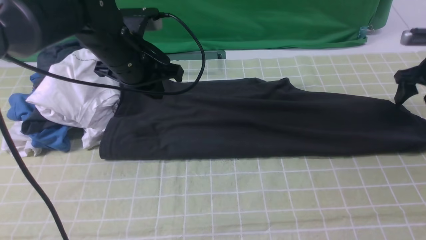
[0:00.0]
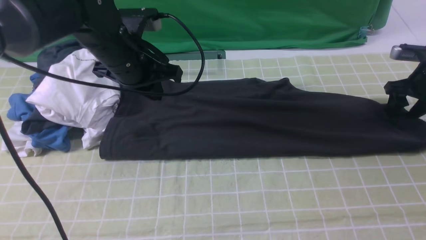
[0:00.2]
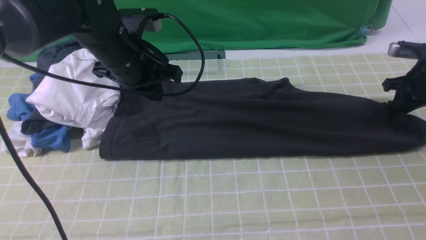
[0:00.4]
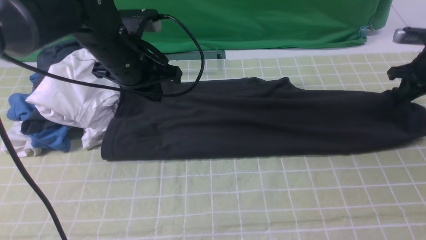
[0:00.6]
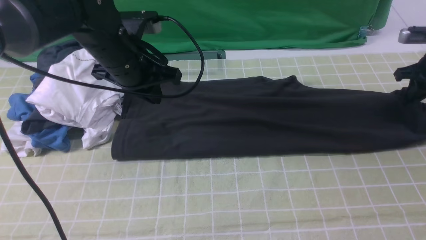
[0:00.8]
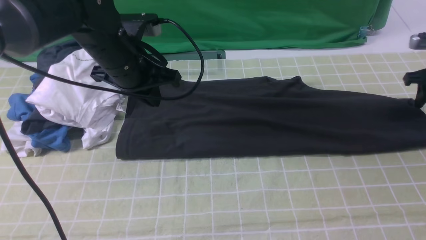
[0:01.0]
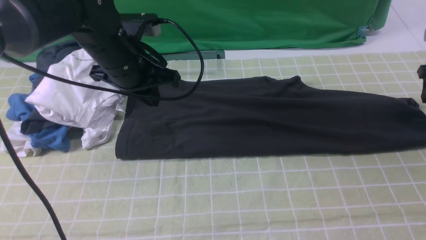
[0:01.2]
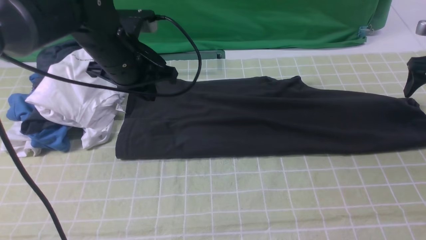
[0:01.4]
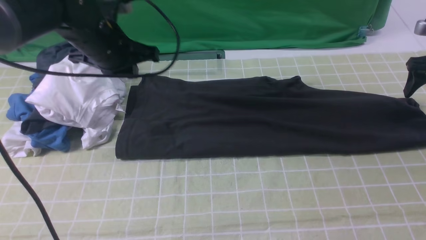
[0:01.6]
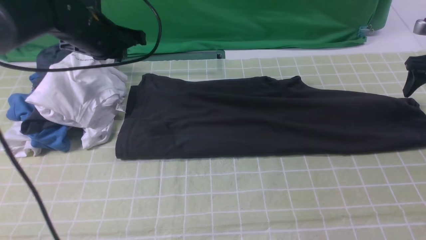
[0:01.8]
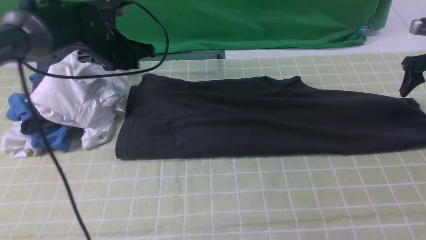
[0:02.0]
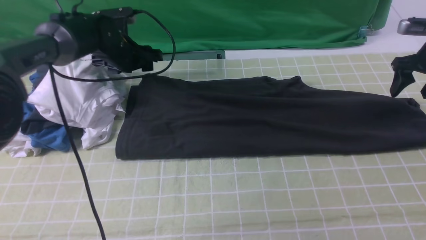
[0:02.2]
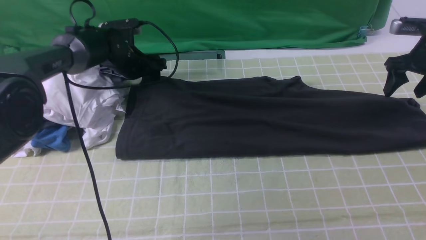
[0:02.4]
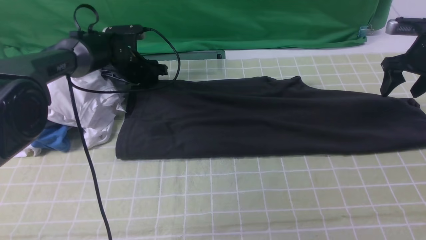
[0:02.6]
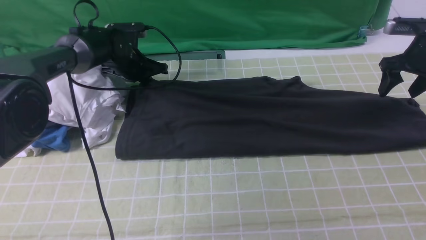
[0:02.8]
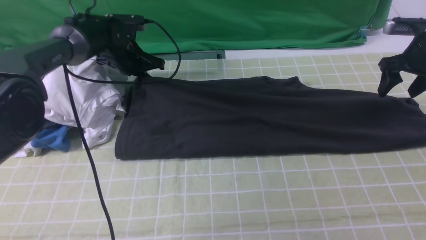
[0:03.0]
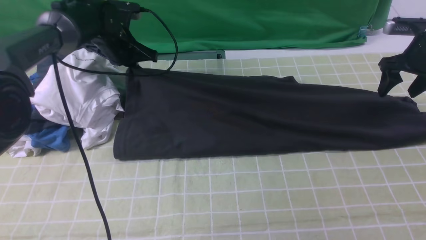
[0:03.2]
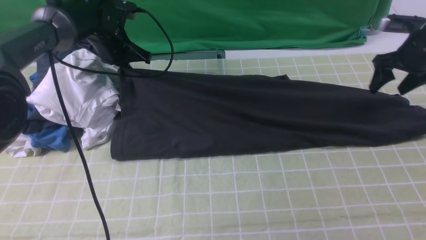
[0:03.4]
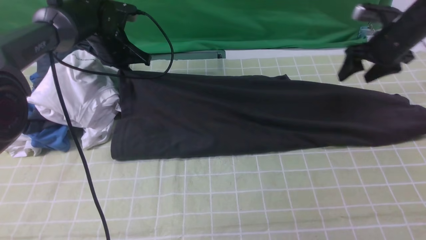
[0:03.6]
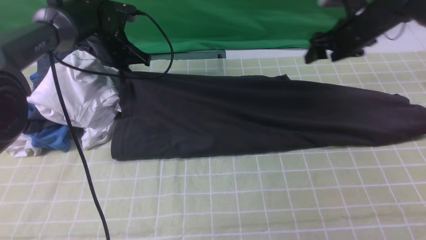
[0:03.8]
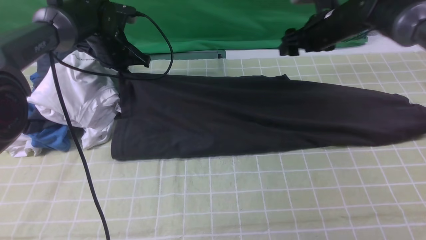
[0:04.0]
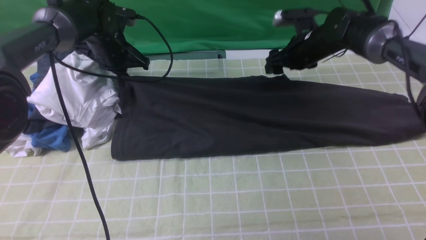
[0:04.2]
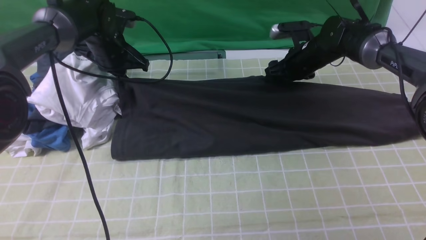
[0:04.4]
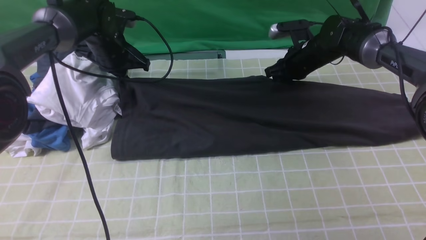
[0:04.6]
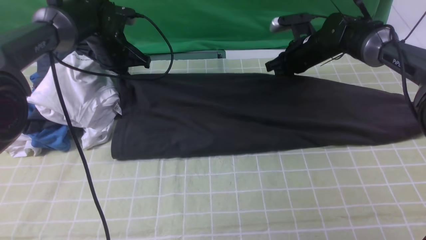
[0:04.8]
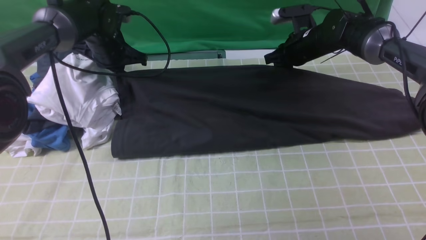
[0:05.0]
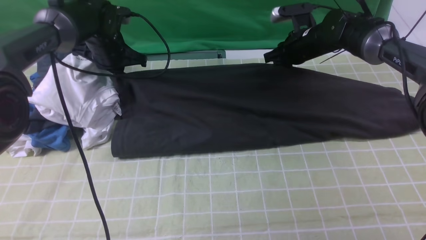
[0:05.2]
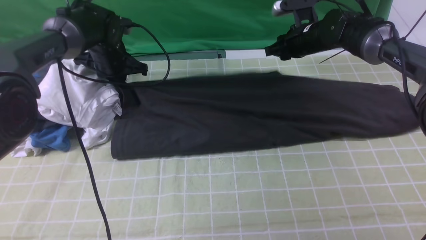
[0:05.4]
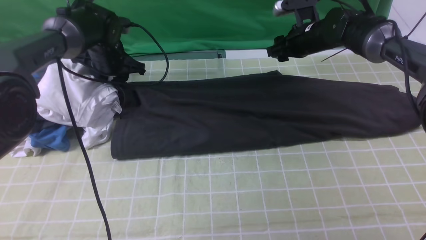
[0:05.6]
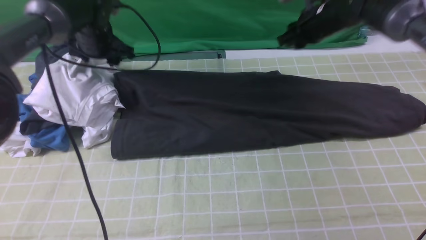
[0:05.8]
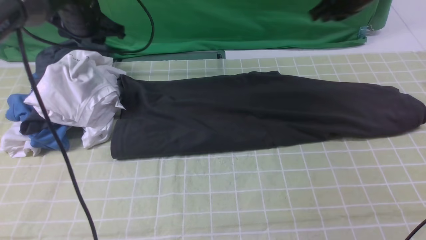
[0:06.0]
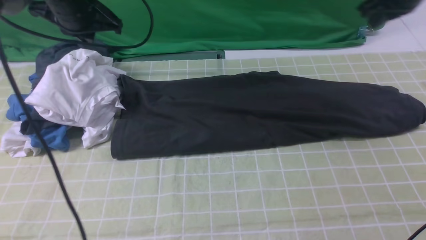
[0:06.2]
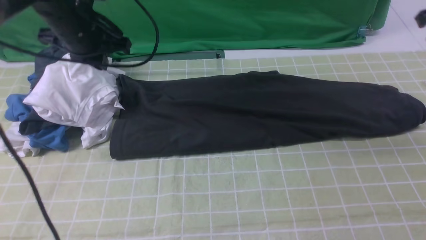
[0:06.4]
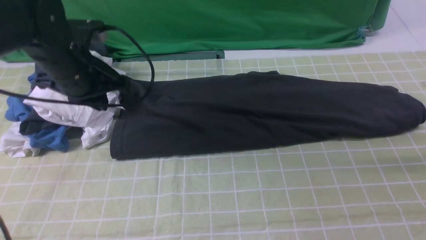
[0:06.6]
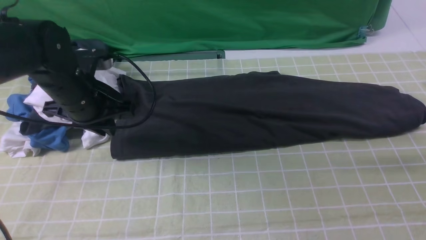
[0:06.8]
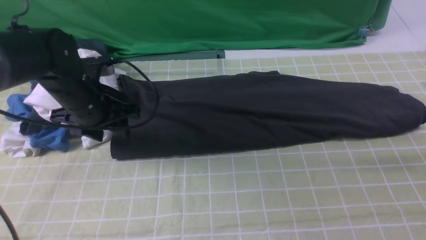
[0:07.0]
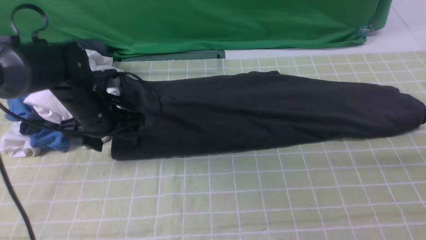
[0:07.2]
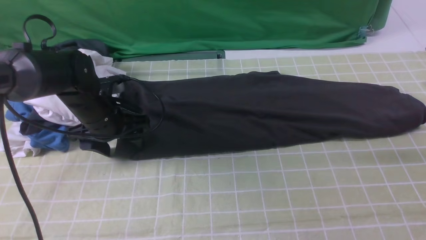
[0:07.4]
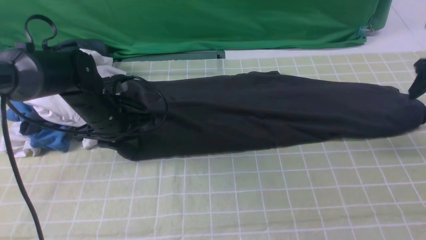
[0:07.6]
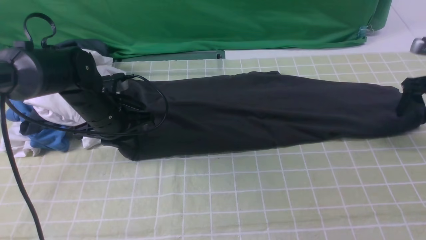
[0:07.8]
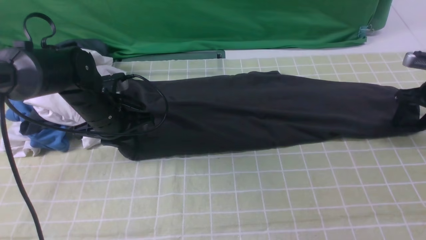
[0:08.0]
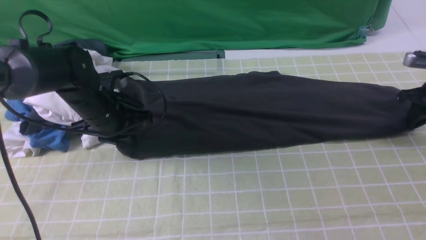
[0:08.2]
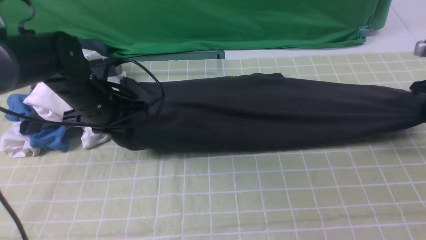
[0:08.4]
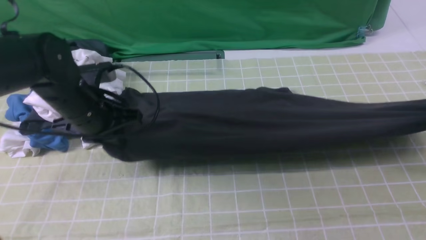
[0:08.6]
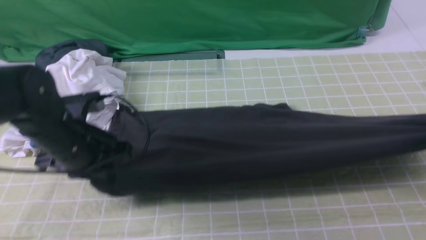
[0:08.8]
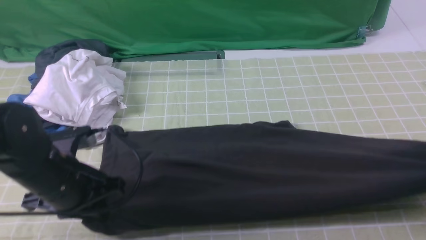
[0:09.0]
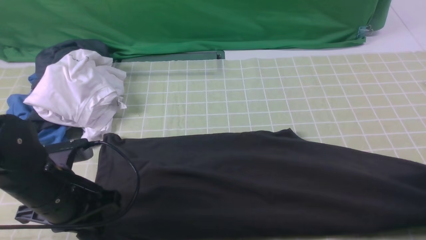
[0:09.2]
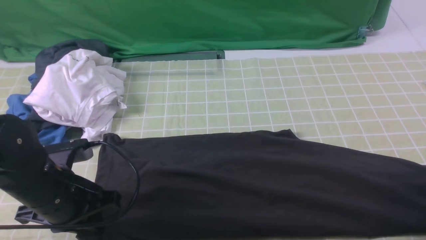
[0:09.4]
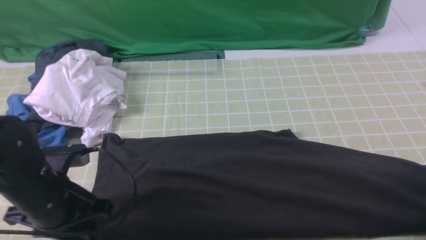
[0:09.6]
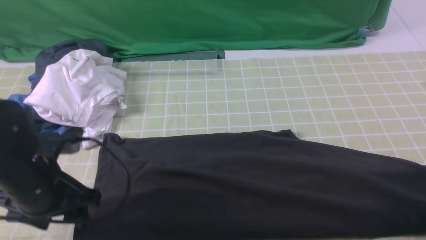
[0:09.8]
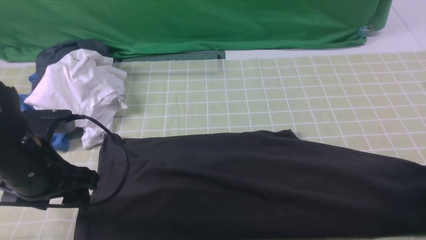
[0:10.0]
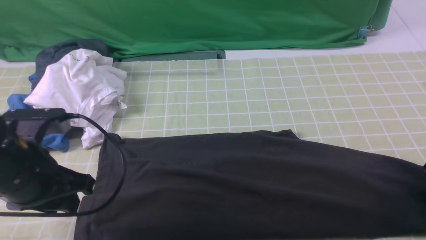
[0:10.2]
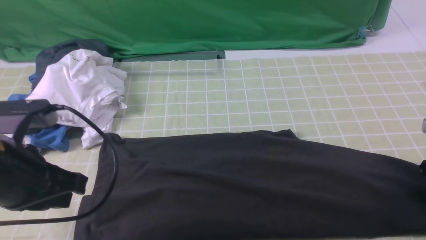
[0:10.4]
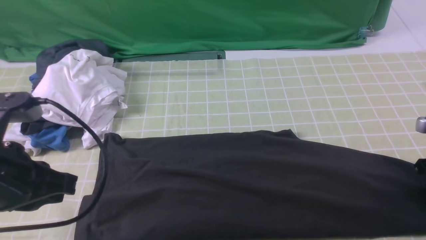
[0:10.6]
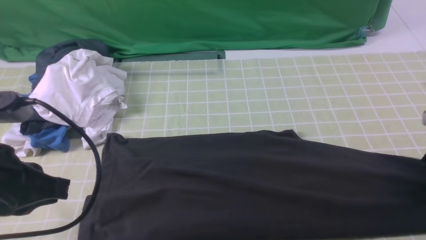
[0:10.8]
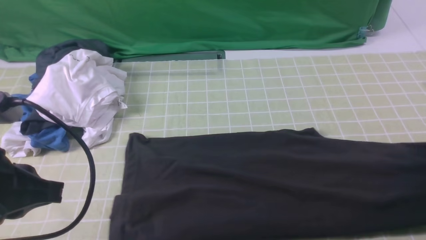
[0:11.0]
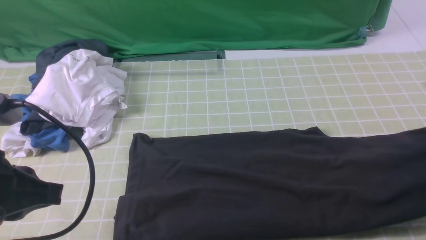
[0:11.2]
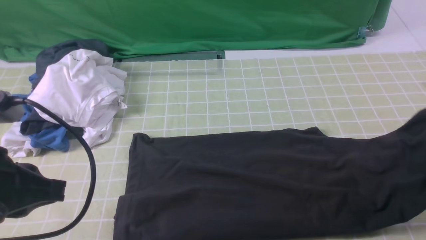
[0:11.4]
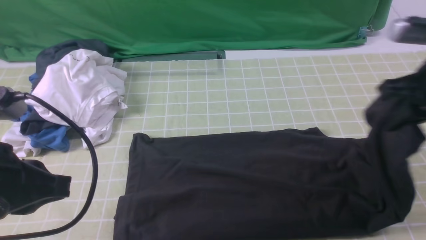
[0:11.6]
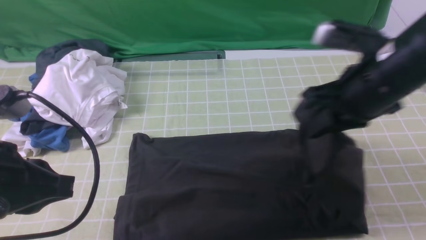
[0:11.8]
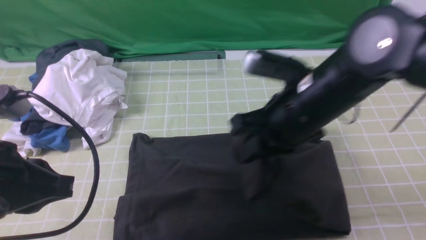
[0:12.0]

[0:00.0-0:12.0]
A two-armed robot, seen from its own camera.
Step, 0:00.0 to 0:10.8: use the right arm to clamp the right edge of the fabric.
0:00.0 to 0:01.6: The right gripper closes, then reopens.
0:01.6 to 0:03.0: The right gripper shifts about 5 cm to the left; the left gripper goes approximately 15 cm forward and downward, and opens and closes again.
0:03.0 to 0:04.4: The right gripper goes some 20 cm to the left.
0:04.4 to 0:06.0: The left gripper travels upward by approximately 10 cm, and opens its fingers. Meanwhile the right gripper travels upward and to the right by roughly 15 cm, and closes its fingers.
0:06.0 to 0:07.6: The right gripper moves to the right and downward, approximately 20 cm, and opens. Meanwhile the left gripper shifts roughly 15 cm downward and backward, and closes and opens again.
0:07.6 to 0:09.0: The two grippers go about 15 cm backward. The left gripper closes up, while the right gripper closes its fingers.
0:09.0 to 0:10.4: The right gripper travels downward by about 10 cm, and opens its fingers. The left gripper travels upward and backward by roughly 10 cm, and opens, then closes once more.
0:10.4 to 0:12.0: The right gripper goes about 35 cm to the left and upward, and closes its fingers.

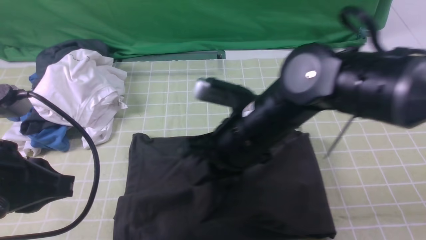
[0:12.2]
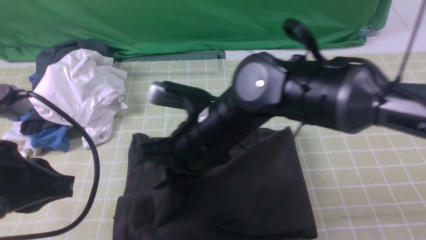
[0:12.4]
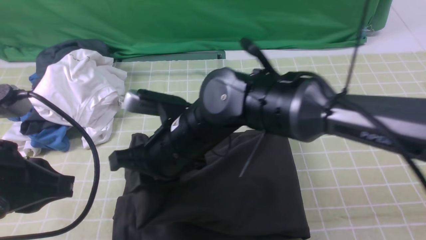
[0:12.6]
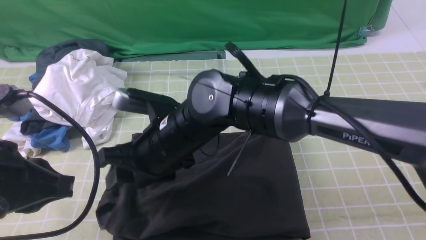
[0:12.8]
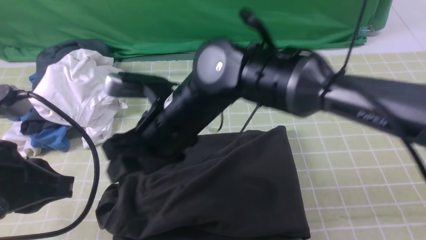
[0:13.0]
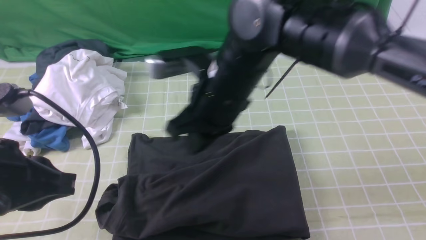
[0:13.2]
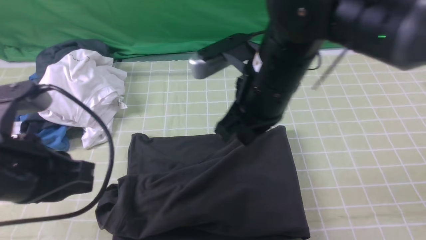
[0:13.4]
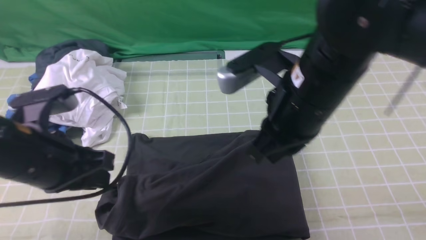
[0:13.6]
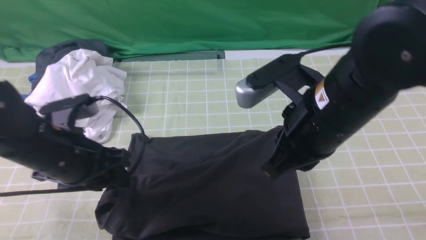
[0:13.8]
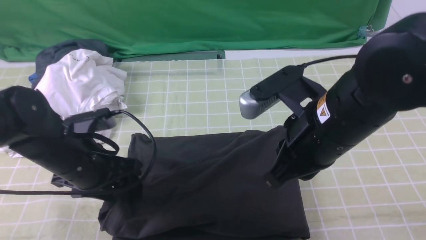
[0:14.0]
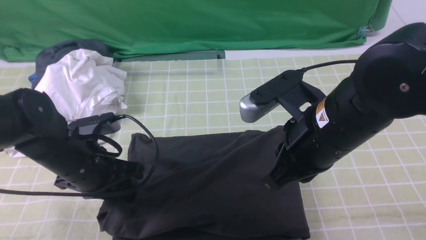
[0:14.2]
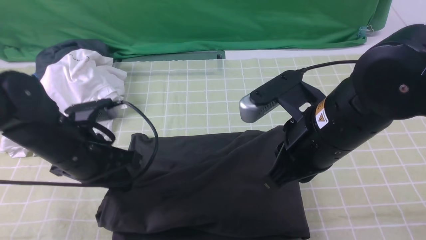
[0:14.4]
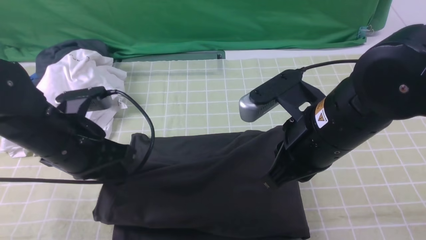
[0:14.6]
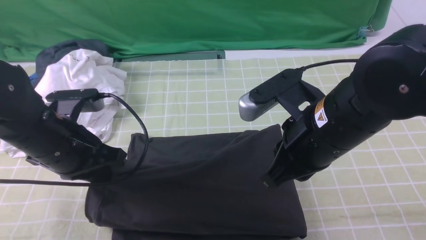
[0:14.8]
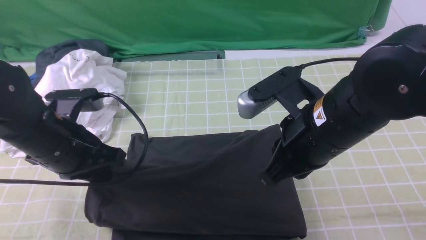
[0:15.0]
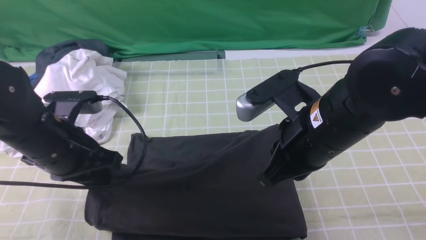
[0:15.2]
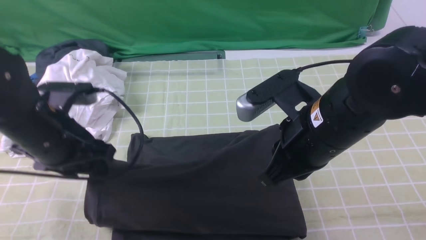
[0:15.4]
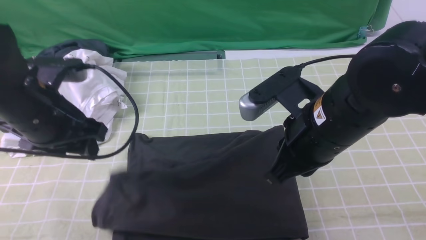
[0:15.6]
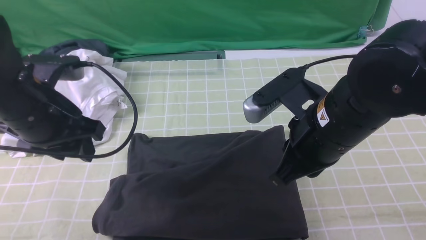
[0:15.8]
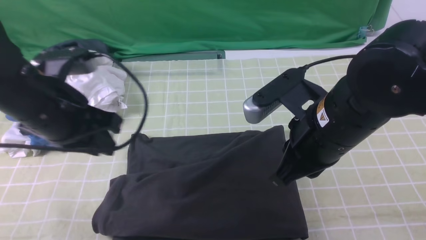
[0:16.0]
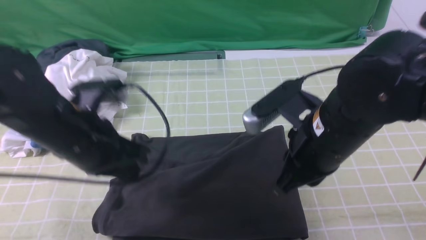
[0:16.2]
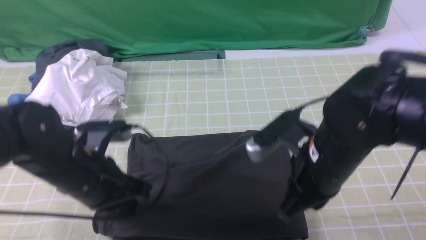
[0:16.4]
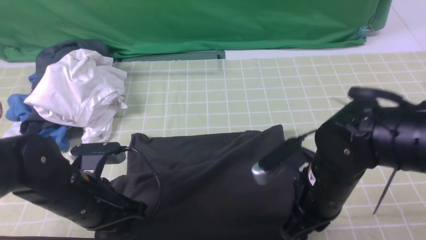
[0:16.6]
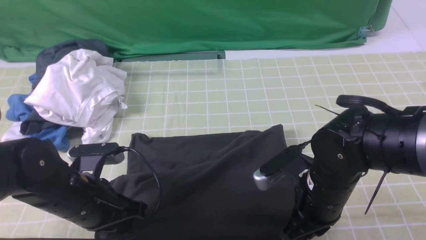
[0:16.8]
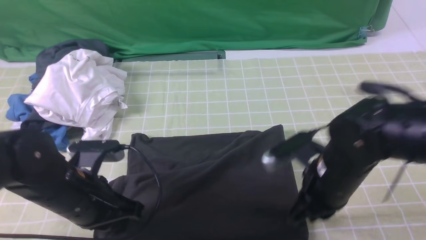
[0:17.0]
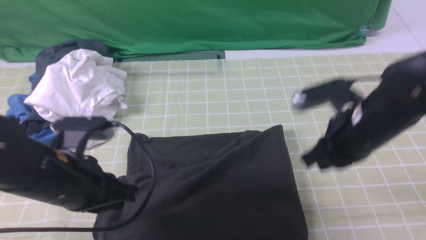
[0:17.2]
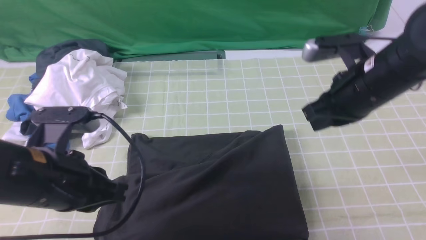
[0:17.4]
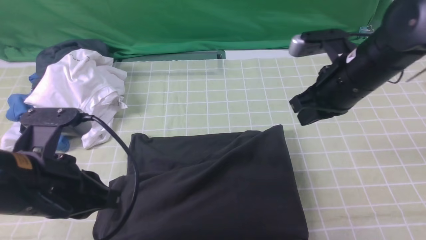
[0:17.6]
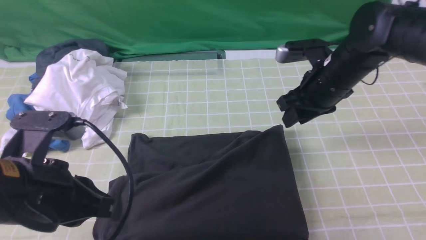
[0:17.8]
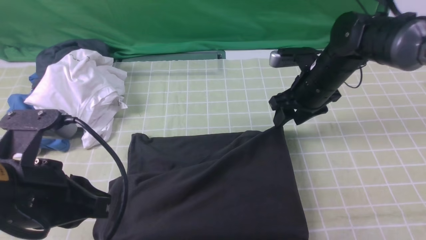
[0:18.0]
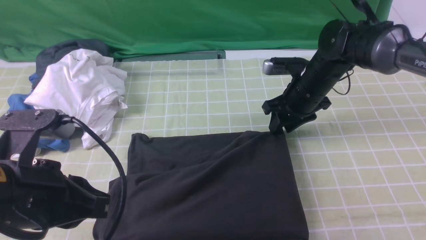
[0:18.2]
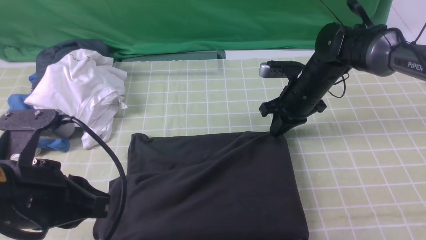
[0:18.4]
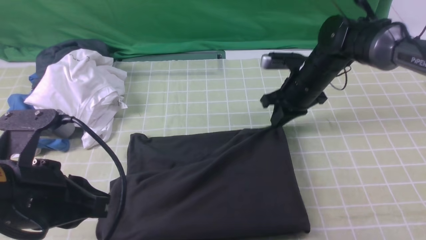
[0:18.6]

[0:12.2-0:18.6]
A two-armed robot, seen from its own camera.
0:12.2 to 0:13.8: The right gripper travels to the right by some 5 cm, and opens and closes again, while the left gripper goes roughly 15 cm forward and downward, and opens up.
0:13.8 to 0:15.4: The left gripper closes, then reopens.
0:15.4 to 0:17.0: The left gripper is displaced downward and backward by approximately 10 cm, and closes its fingers, while the right gripper shifts some 10 cm downward.
0:17.0 to 0:18.6: The left gripper shifts approximately 10 cm upward and backward. The right gripper shifts about 20 cm forward, and opens, then closes once more.
